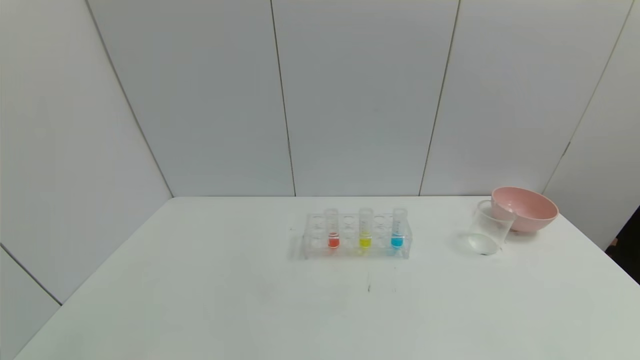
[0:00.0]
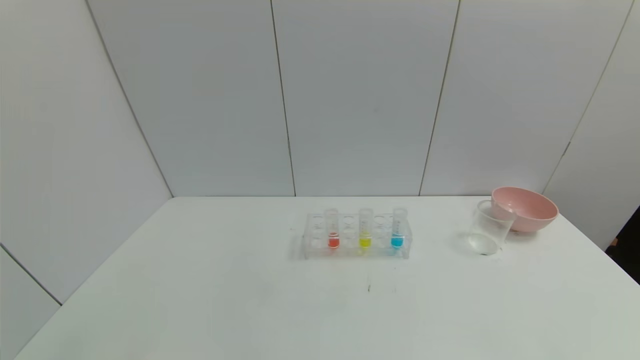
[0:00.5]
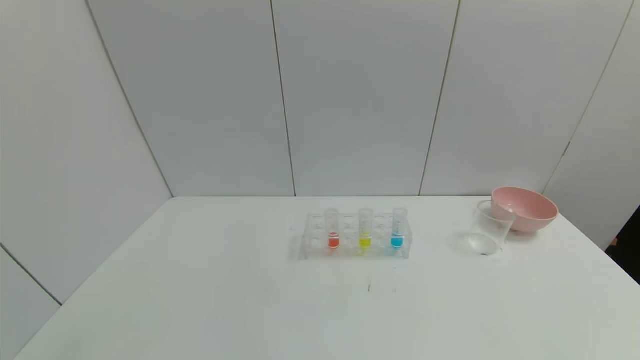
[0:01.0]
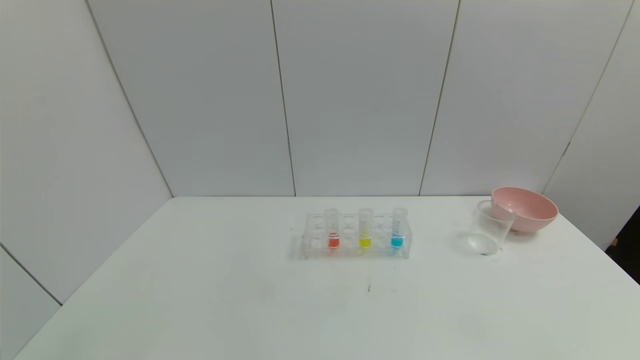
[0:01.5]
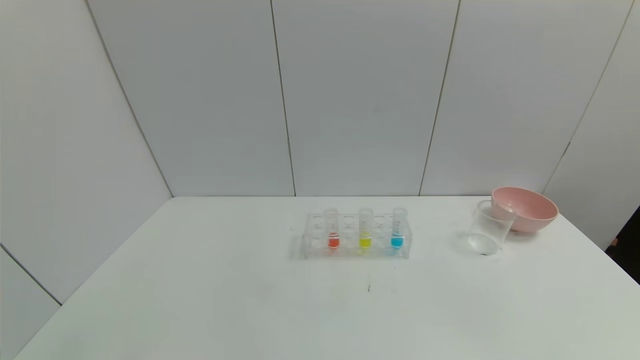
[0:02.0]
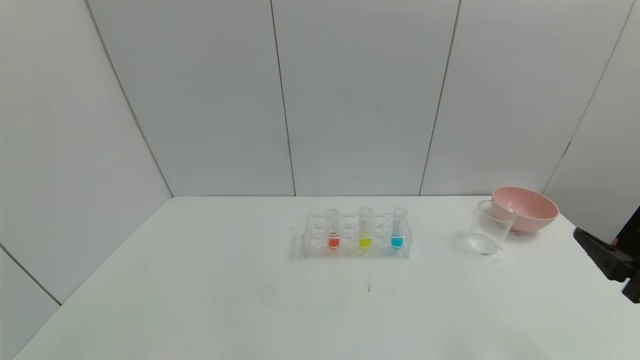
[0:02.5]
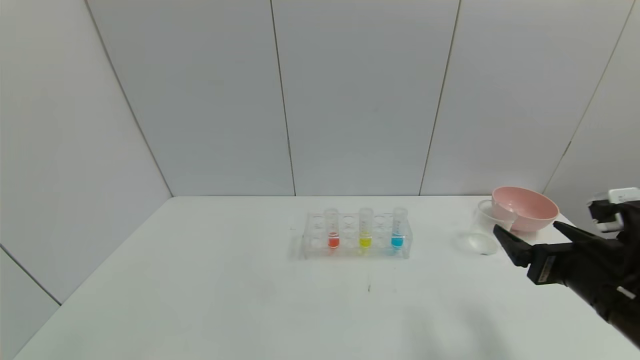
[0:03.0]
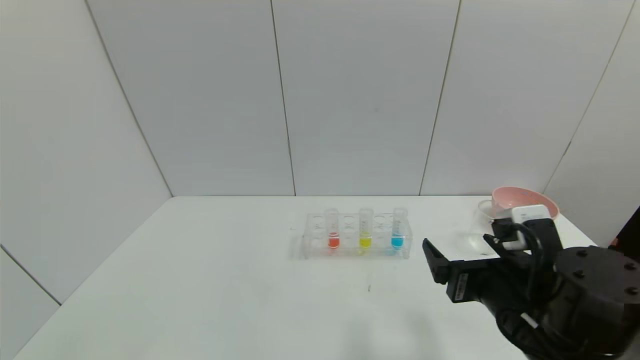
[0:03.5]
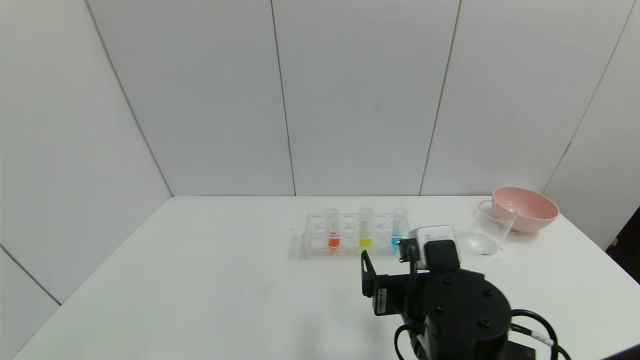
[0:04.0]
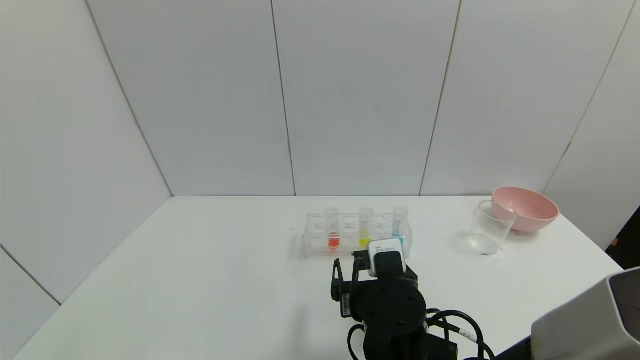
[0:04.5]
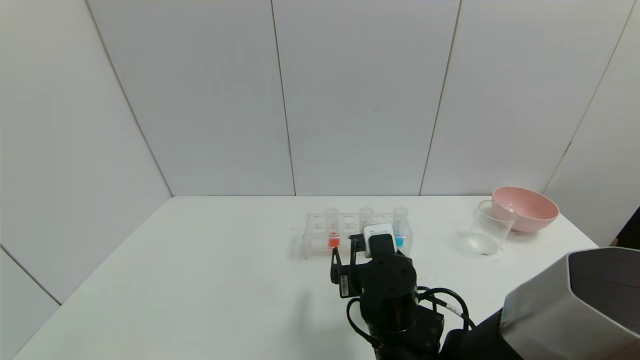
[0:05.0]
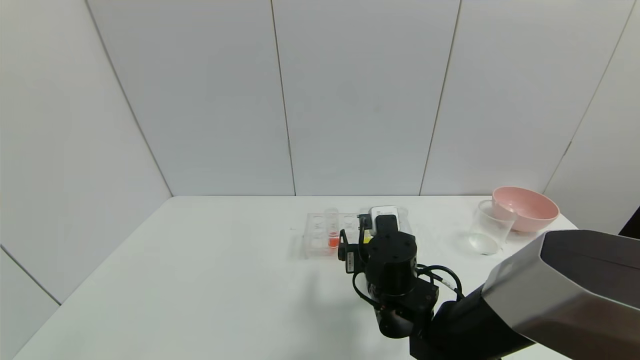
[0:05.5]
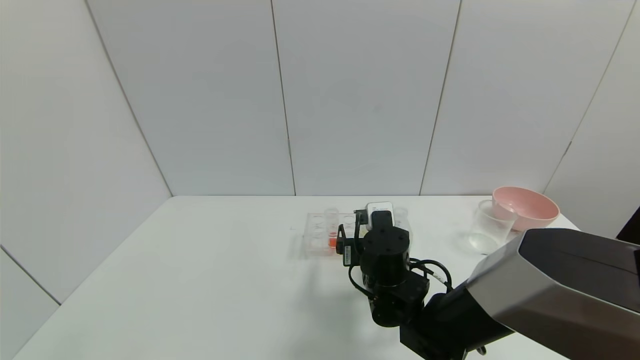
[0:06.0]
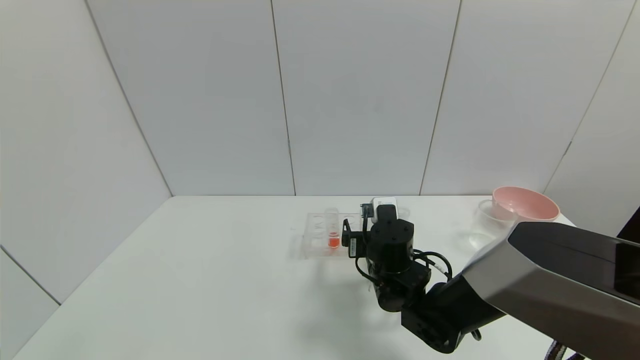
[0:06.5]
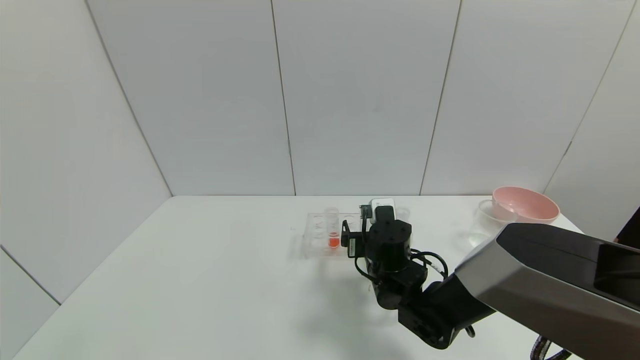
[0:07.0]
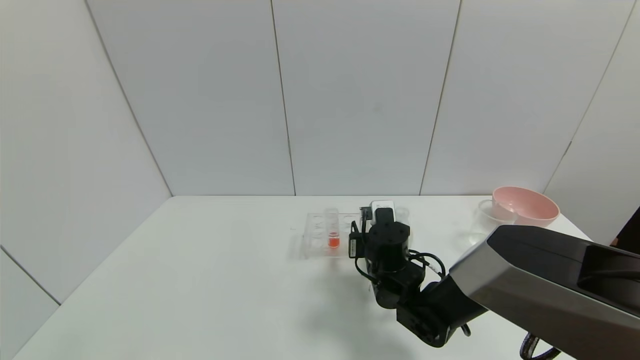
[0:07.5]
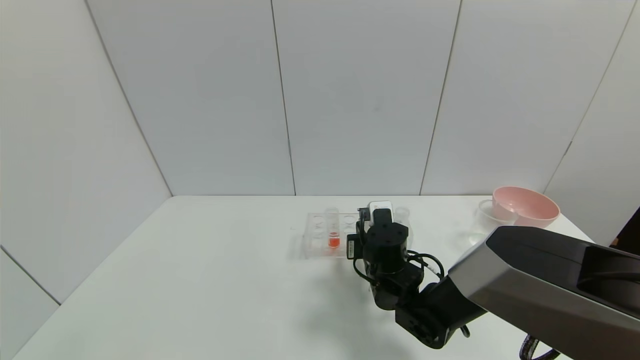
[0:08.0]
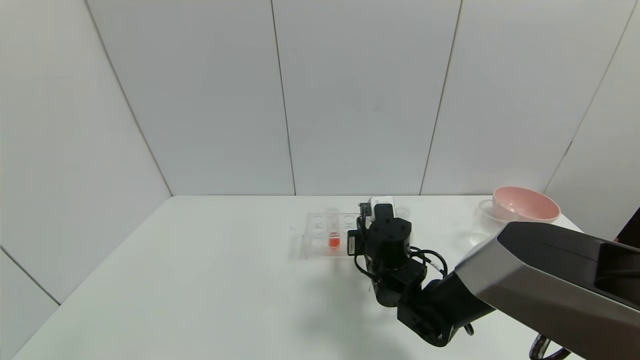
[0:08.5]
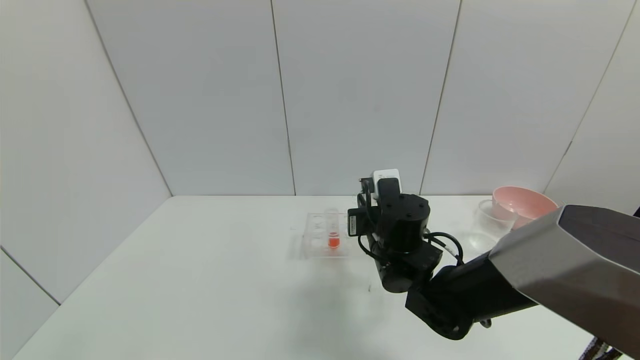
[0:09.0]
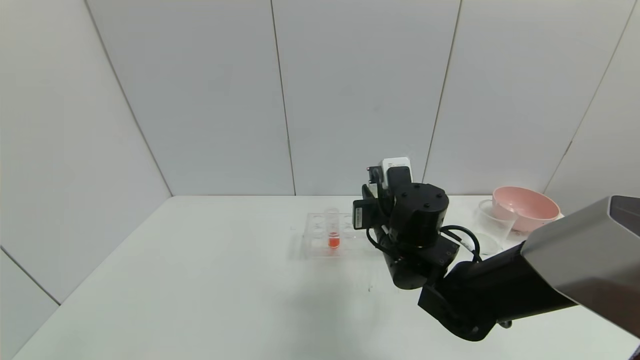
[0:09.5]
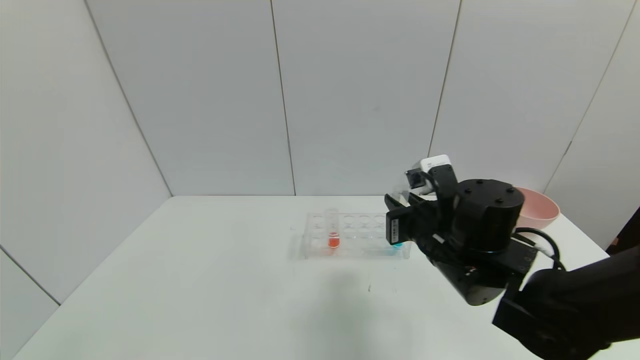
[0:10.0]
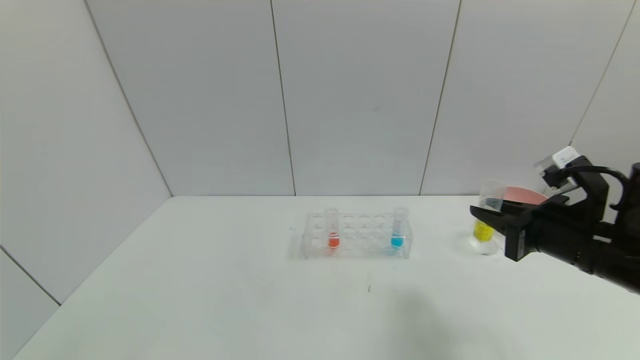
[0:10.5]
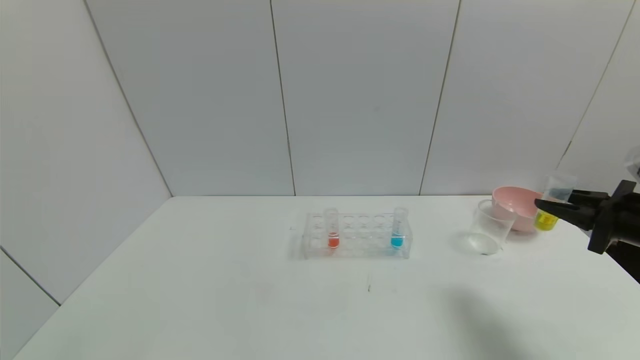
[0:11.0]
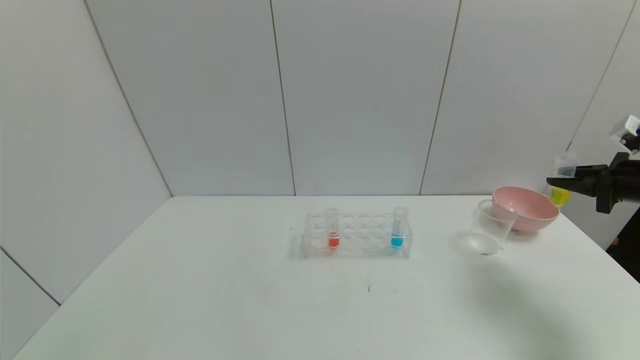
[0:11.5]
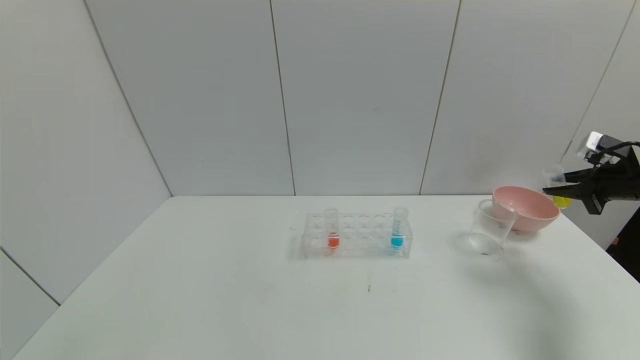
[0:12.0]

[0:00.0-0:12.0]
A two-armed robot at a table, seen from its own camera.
Task of the whole recording: pick up the test tube with yellow pigment and the test tube with blue pigment by grippers and pour them into the beaker.
Step, 0:00.0 to 0:08.0: Grasp the yellow reagent with the right gripper.
0:02.0 to 0:04.0: The right gripper shifts about 30 cm to the left and forward.
0:04.0 to 0:06.0: The right gripper heads forward, covering some 10 cm.
0:06.0 to 0:08.0: The right gripper closes.
0:08.0 to 0:10.0: The right gripper shifts approximately 15 cm upward, to the right and backward.
0:10.0 to 0:12.0: The right gripper moves to the right, approximately 35 cm.

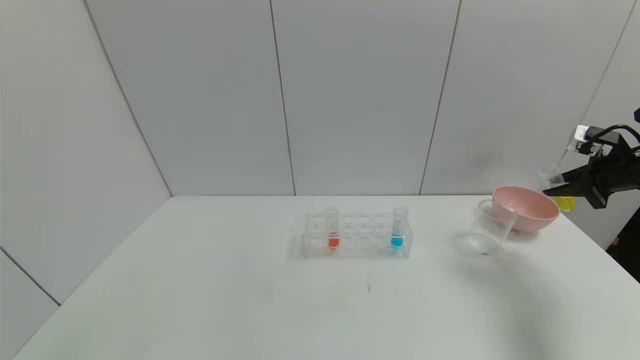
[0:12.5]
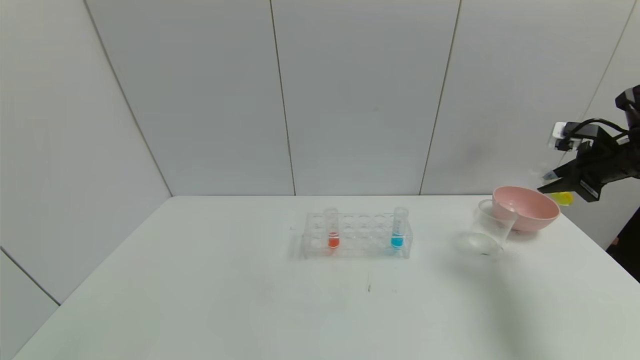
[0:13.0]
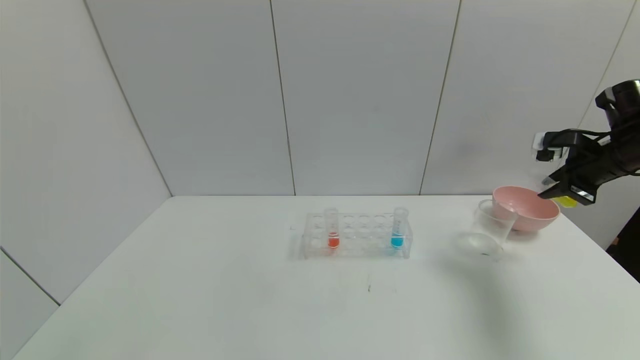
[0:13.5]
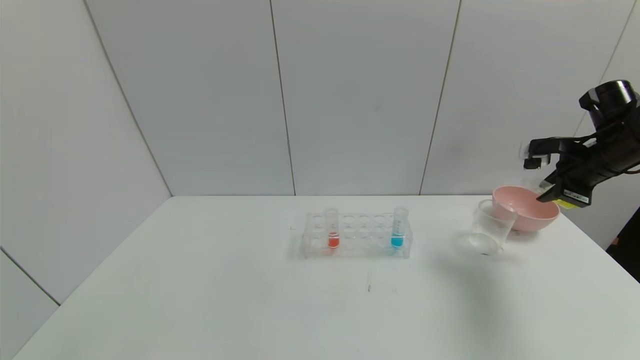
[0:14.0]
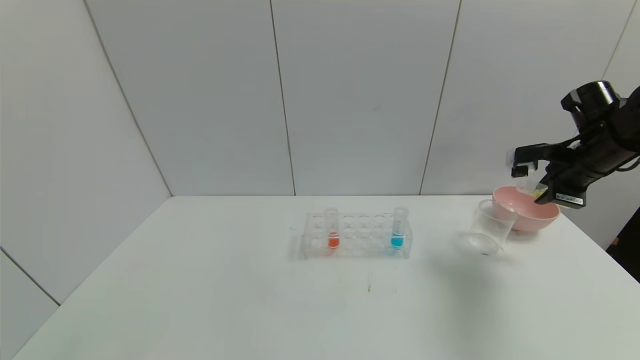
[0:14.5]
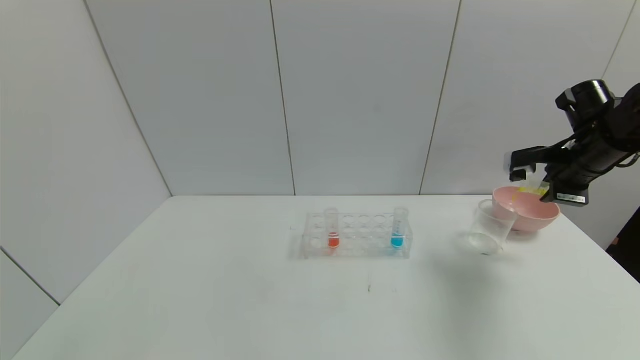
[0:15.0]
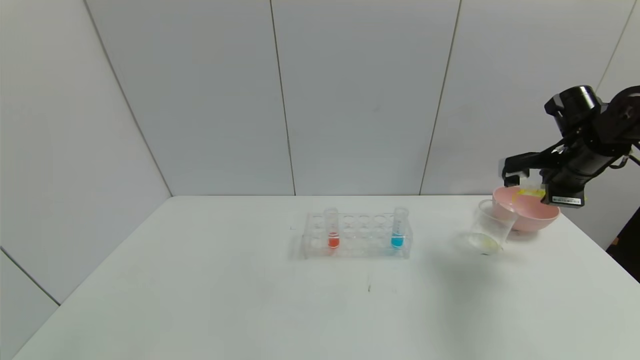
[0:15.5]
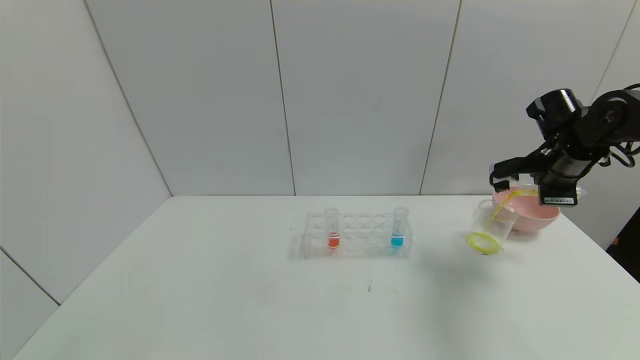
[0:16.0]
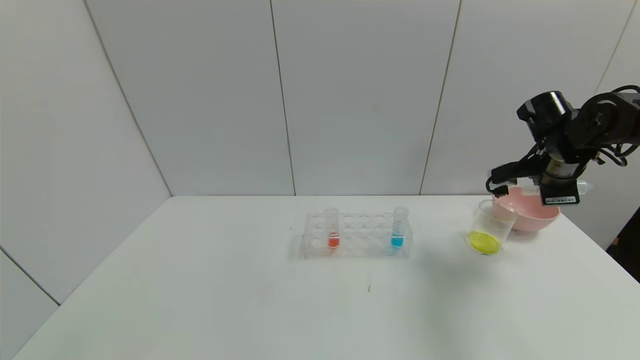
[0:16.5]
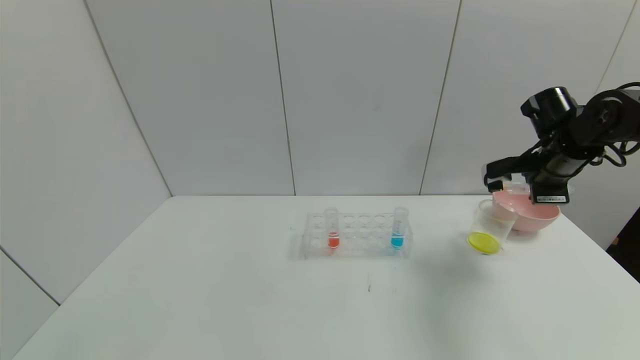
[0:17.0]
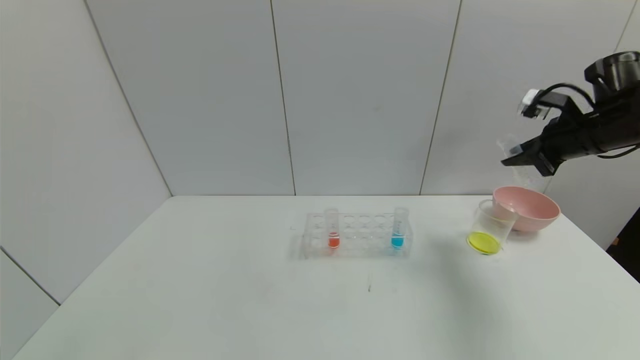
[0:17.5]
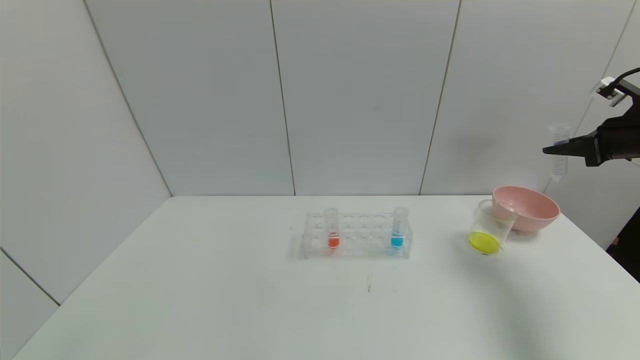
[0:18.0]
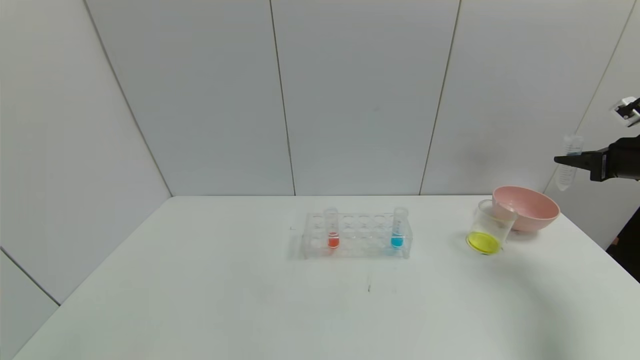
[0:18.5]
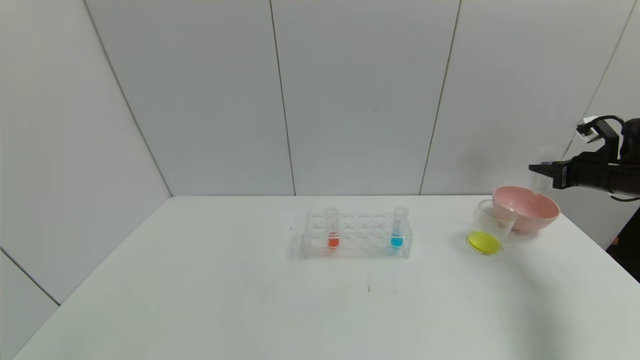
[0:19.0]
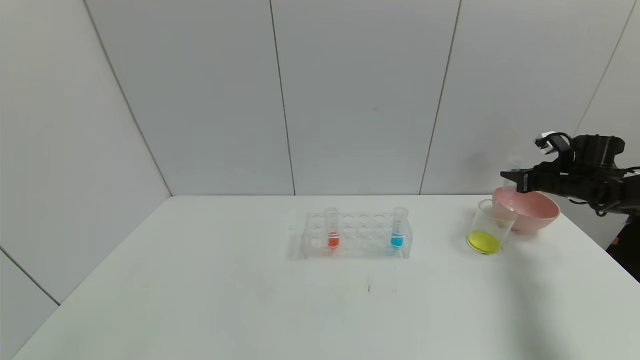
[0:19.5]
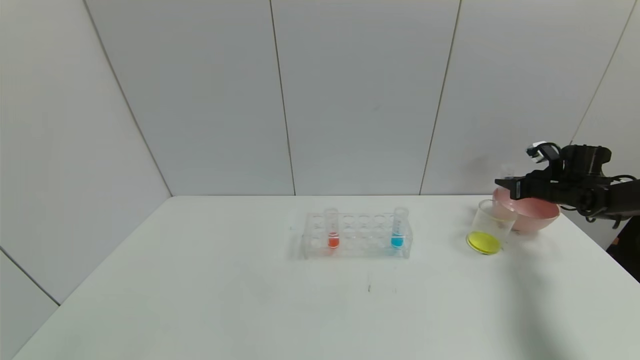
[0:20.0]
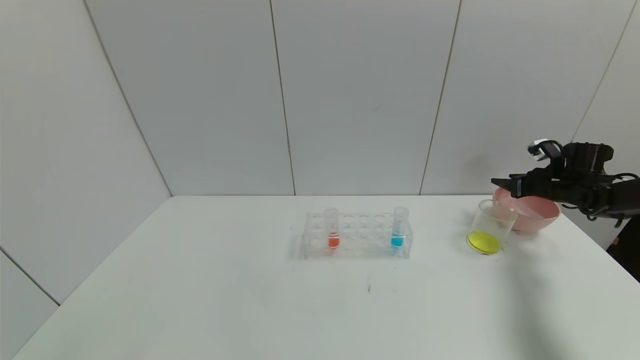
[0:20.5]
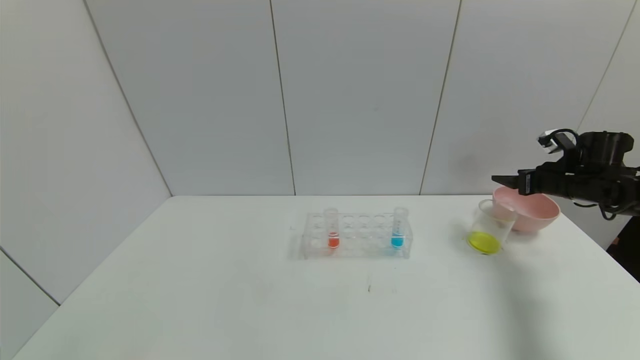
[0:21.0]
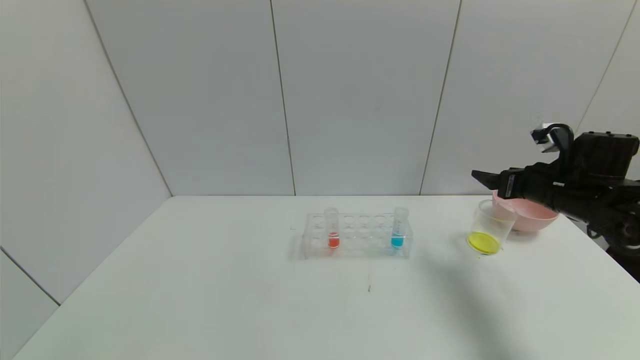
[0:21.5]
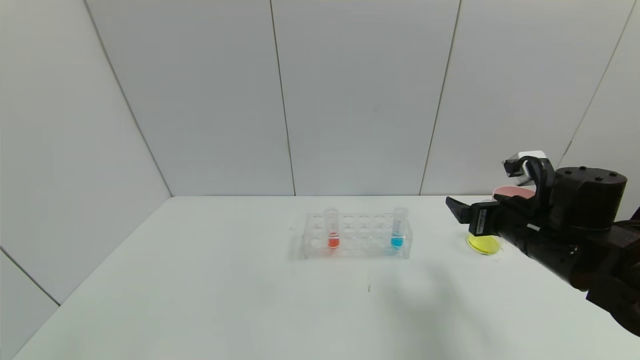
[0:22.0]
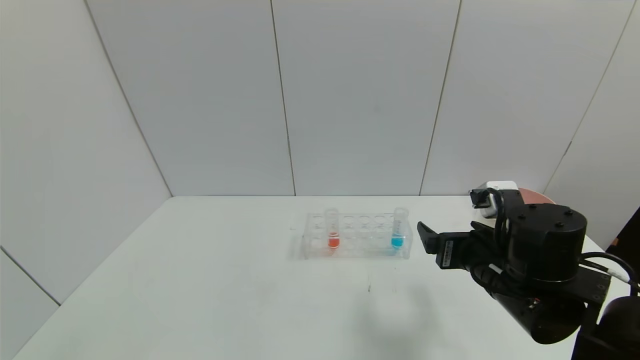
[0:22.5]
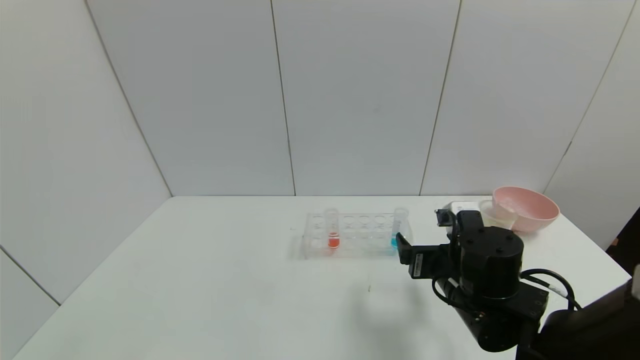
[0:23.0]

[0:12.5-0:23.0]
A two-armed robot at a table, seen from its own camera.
Task of the whole recording: pick up the test tube with yellow pigment and the test tube with blue pigment by grippers and pour them into the beaker.
Step, 0:12.5 to 0:17.0: Pour the yellow reagent into the graduated cylinder with the right gripper.
Step, 0:17.5 to 0:20.5: Place the test tube into the bowl with the right gripper.
0:12.5 to 0:14.5: The right gripper goes some 10 cm to the left.
0:16.5 to 0:19.0: The right gripper shifts some 15 cm to the right.
0:19.0 to 0:21.0: The right gripper opens its fingers.
0:21.0 to 0:23.0: The right gripper travels to the left and backward by some 35 cm.
